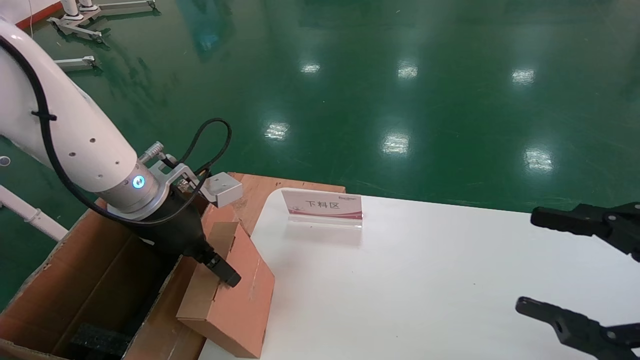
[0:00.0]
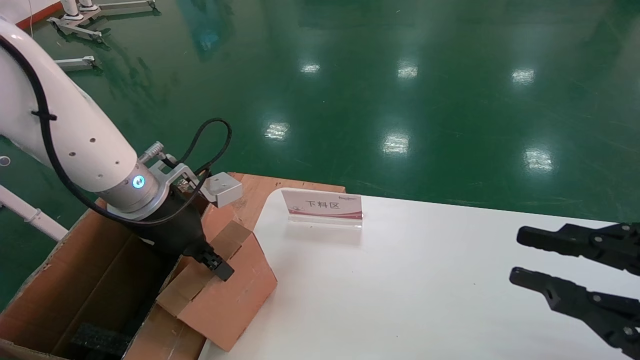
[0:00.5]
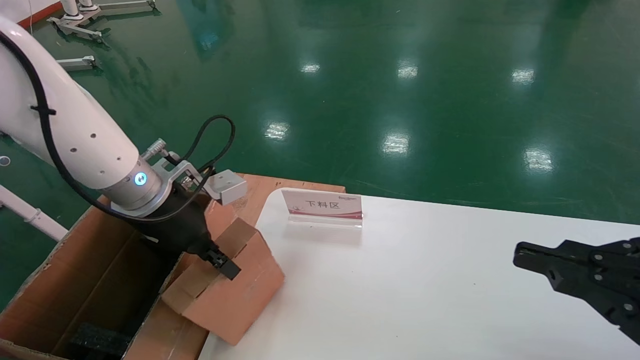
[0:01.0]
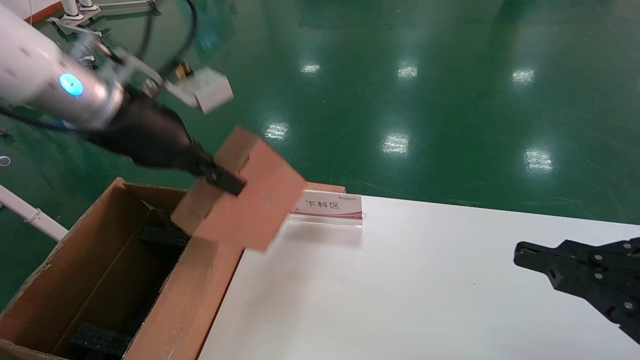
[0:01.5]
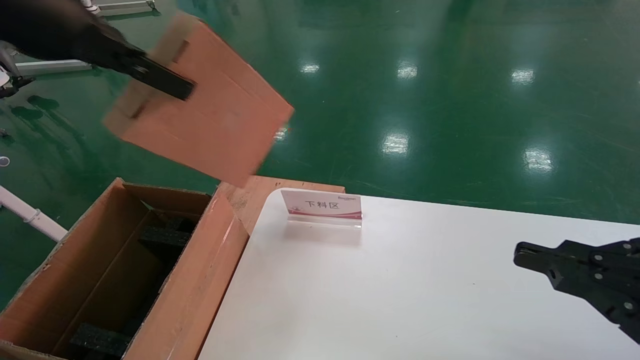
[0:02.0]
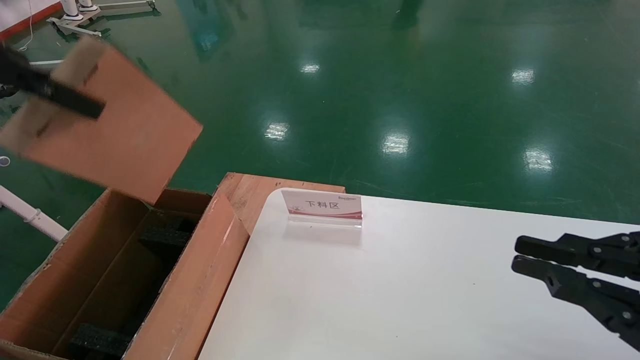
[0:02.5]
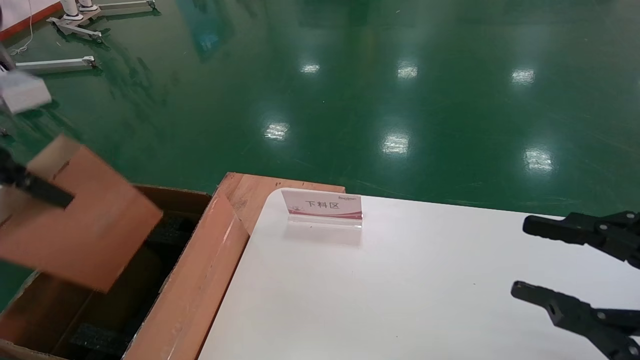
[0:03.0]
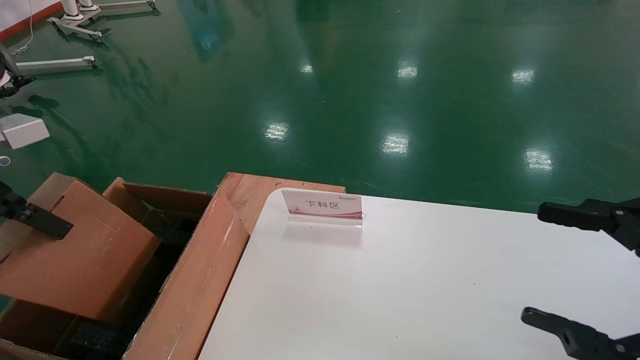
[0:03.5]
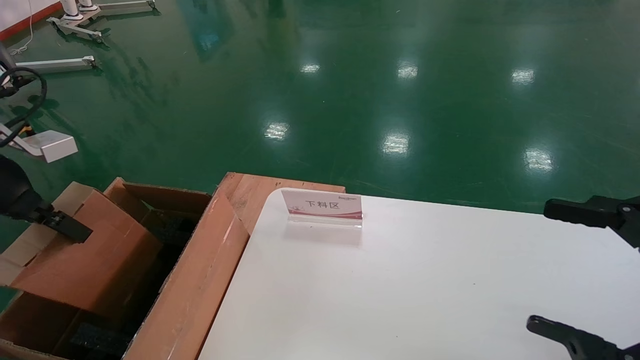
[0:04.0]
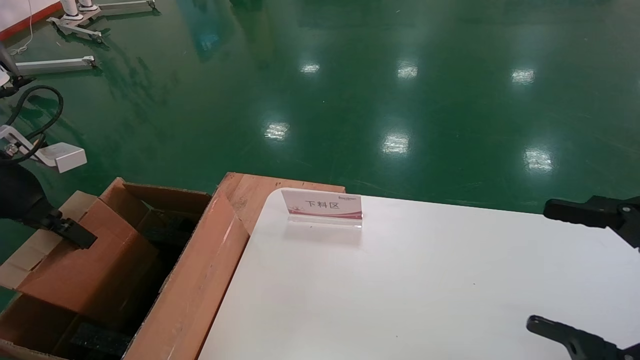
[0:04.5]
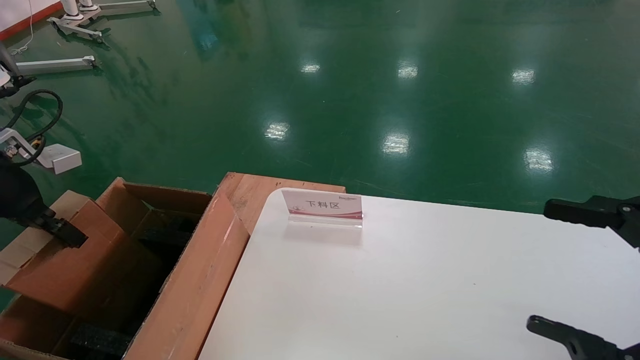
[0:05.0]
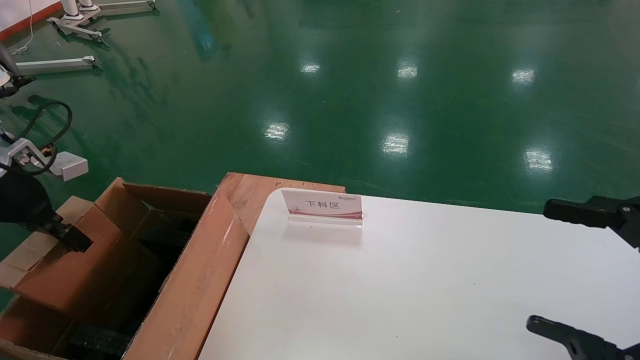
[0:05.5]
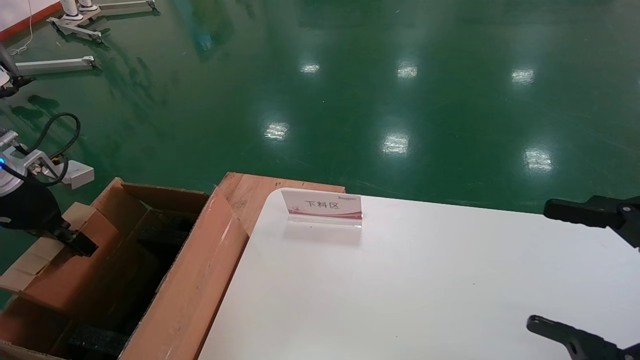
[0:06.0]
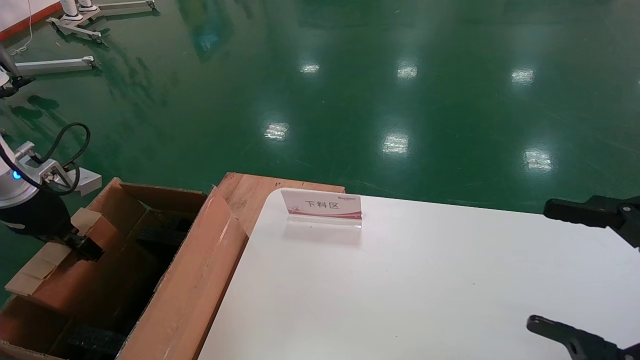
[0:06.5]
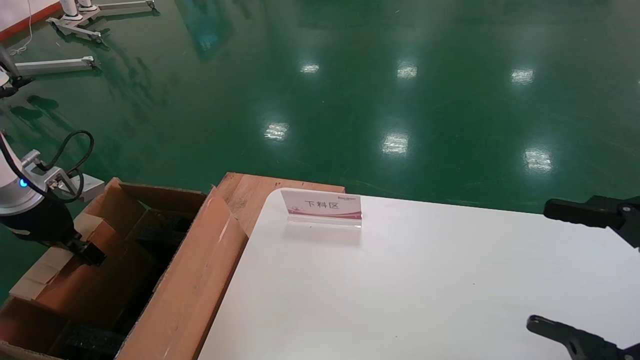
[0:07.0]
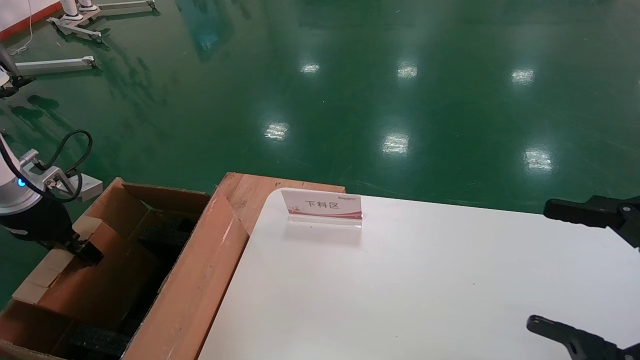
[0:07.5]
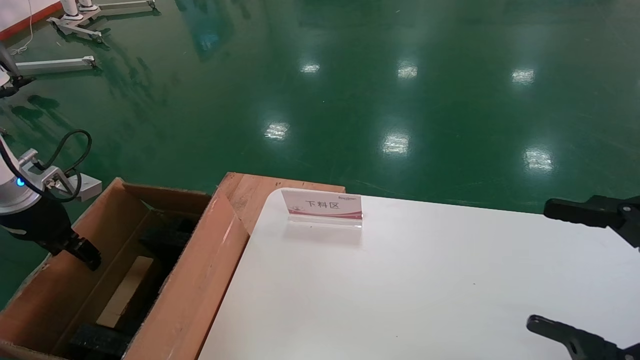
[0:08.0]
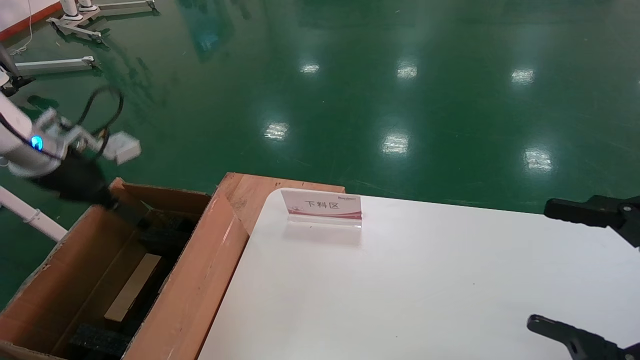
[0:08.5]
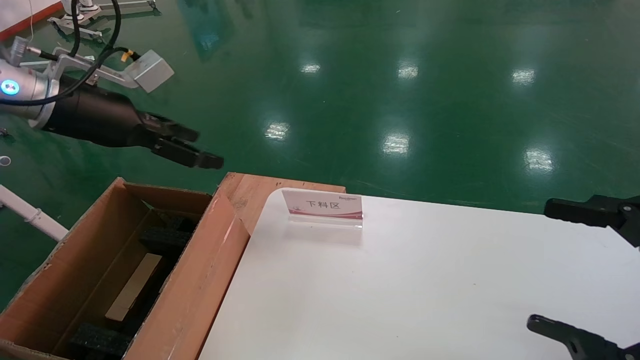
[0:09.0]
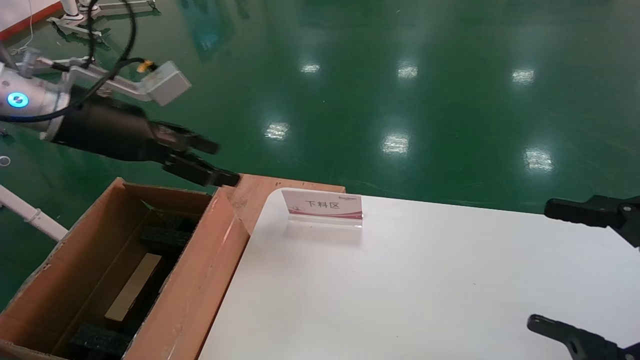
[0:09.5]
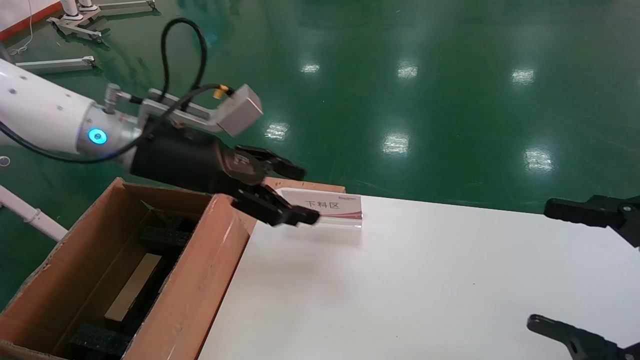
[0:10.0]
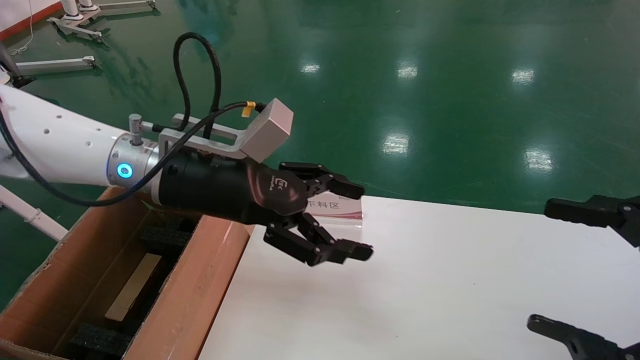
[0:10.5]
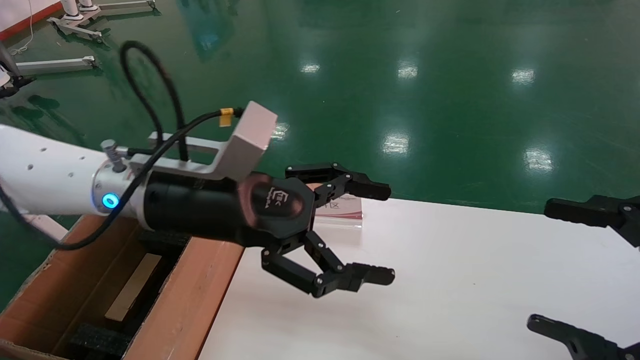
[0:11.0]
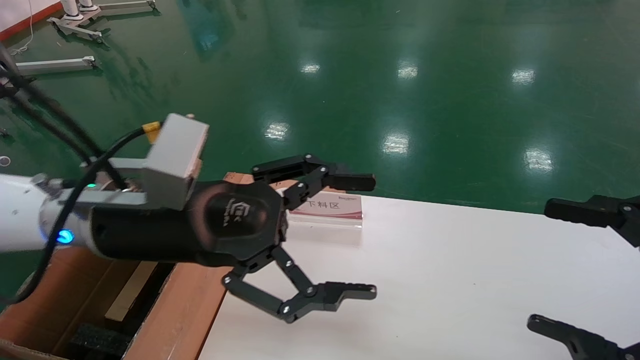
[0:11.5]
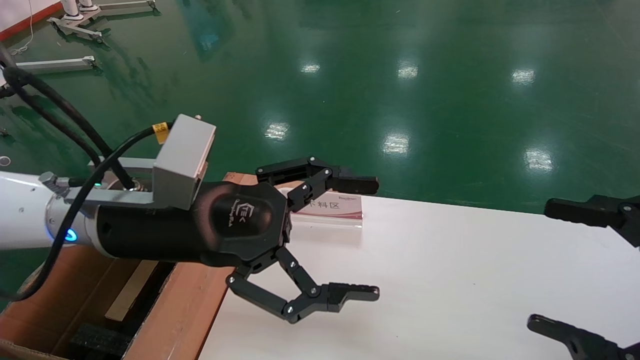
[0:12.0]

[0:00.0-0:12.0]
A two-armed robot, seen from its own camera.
Task of the whole recording: pick up the small cardboard box and load it into the large cardboard box.
Step, 0:01.0 to 0:07.5: Place the mouse and power cord box into the case.
0:00.0 to 0:02.0: The left gripper heads upward, covering some 20 cm, and closes its fingers. The right gripper closes.
0:02.0 to 0:04.0: The left gripper heads downward and to the left, covering roughly 20 cm. The right gripper opens.
0:04.0 to 0:06.0: The left gripper heads downward and forward, covering approximately 10 cm.
0:06.0 to 0:08.0: The left gripper opens.
0:08.0 to 0:10.0: The left gripper moves to the right, approximately 25 cm, and opens.
0:10.0 to 0:12.0: The left gripper moves backward and to the right, some 10 cm.
